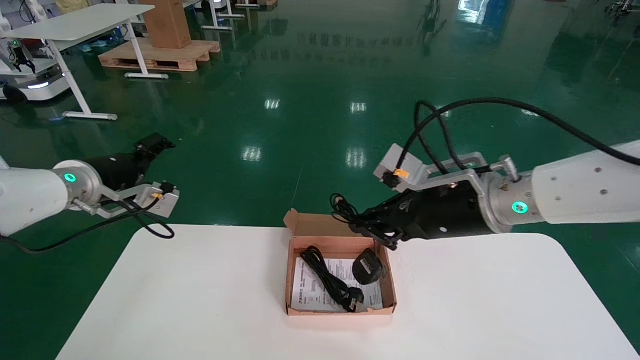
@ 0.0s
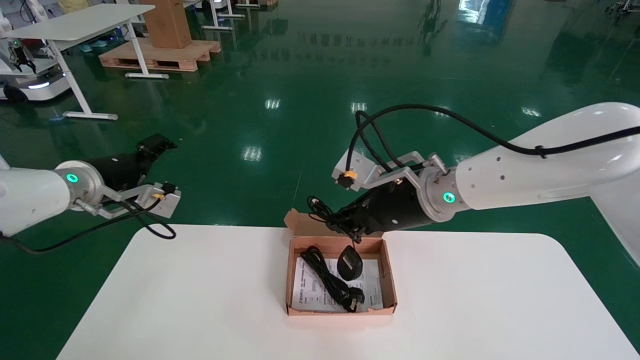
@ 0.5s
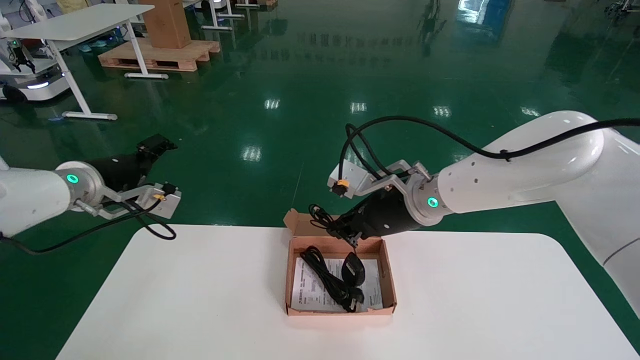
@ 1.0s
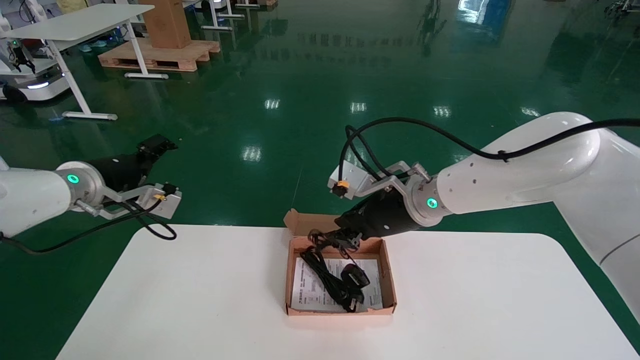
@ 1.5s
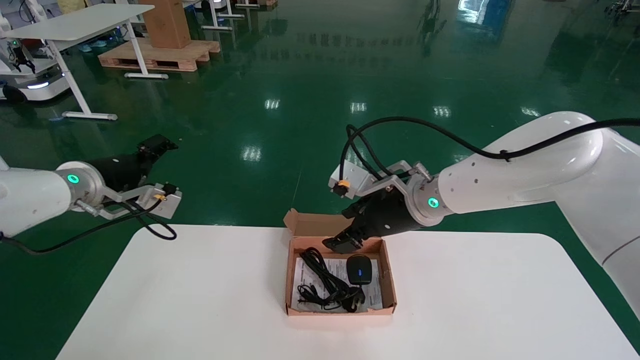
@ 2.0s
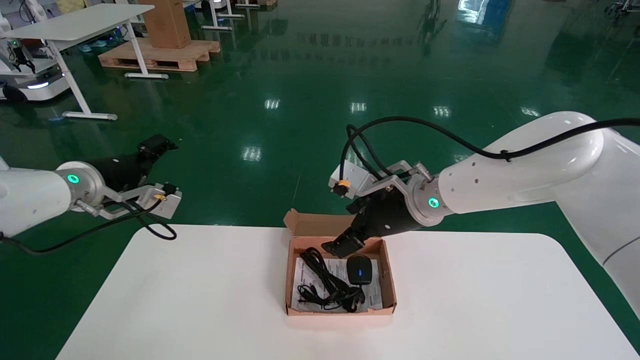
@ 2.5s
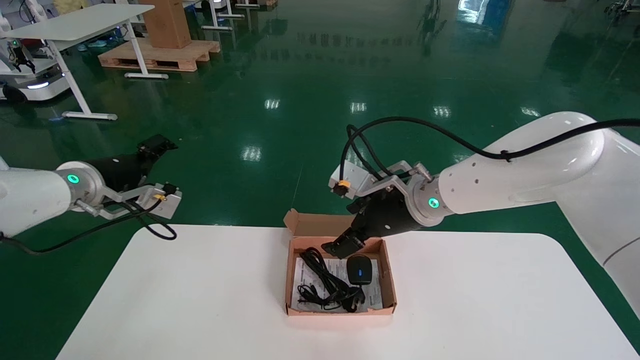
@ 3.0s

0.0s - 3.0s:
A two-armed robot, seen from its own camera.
Step, 0.0s - 2.5s: Place the mouse and power cord into the box.
0.0s - 1.5s: The right gripper moves to the left and forward, approximately 20 cm.
1.5s - 3.0s: The right gripper opens up.
